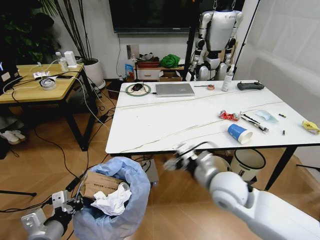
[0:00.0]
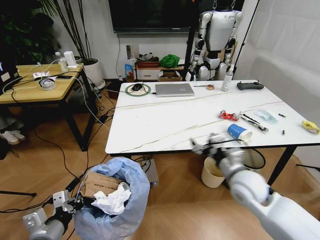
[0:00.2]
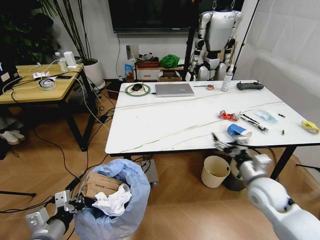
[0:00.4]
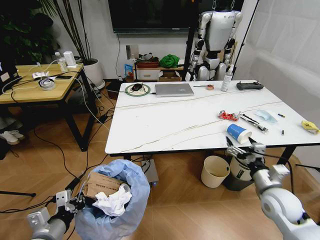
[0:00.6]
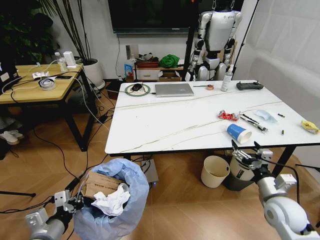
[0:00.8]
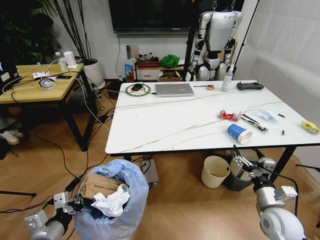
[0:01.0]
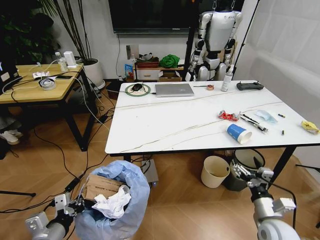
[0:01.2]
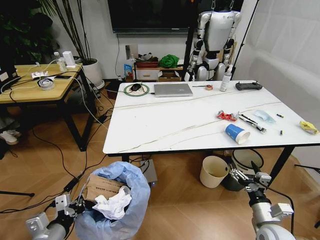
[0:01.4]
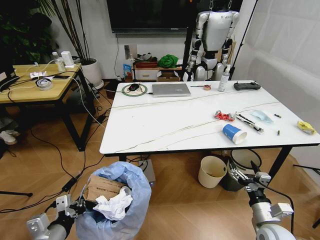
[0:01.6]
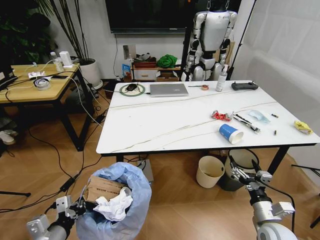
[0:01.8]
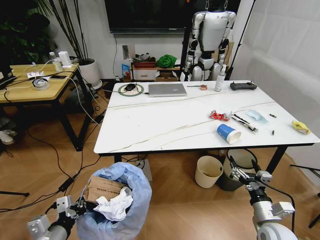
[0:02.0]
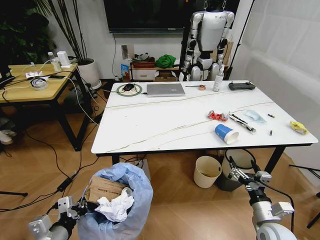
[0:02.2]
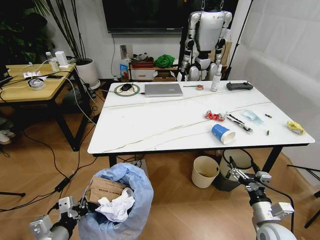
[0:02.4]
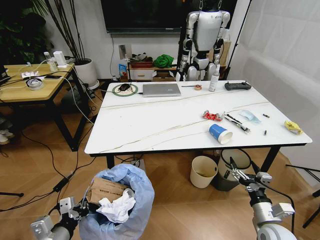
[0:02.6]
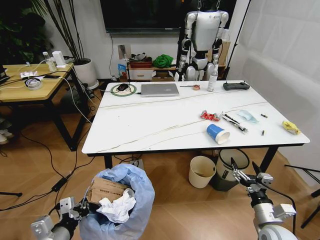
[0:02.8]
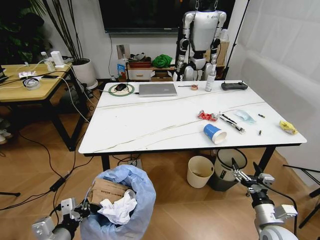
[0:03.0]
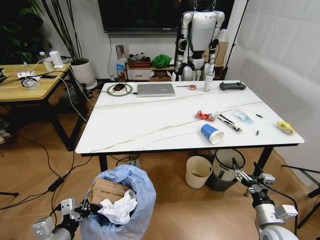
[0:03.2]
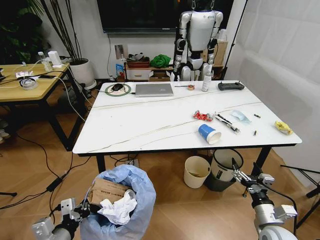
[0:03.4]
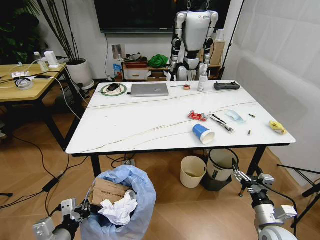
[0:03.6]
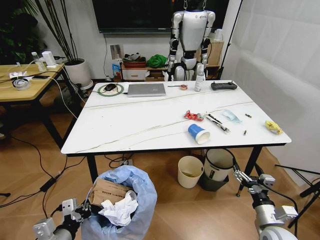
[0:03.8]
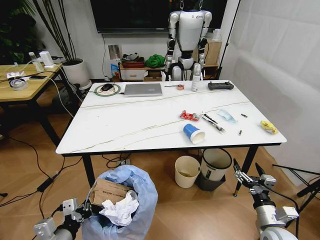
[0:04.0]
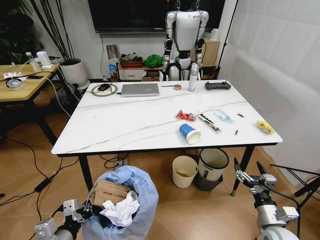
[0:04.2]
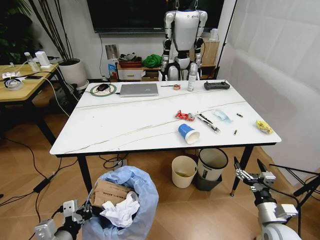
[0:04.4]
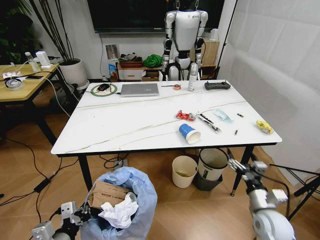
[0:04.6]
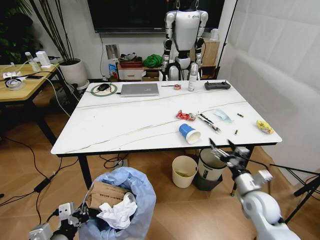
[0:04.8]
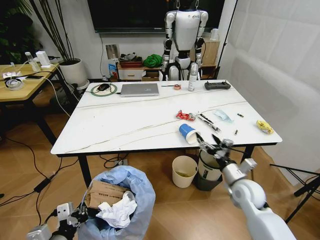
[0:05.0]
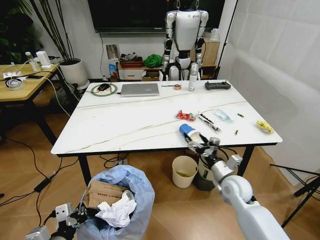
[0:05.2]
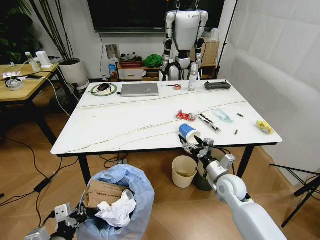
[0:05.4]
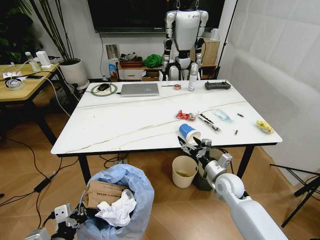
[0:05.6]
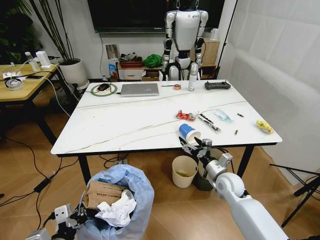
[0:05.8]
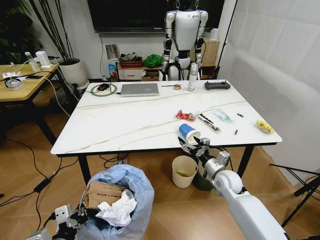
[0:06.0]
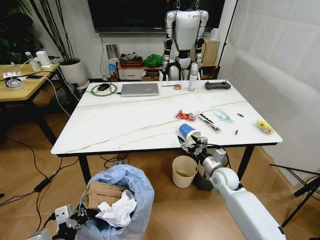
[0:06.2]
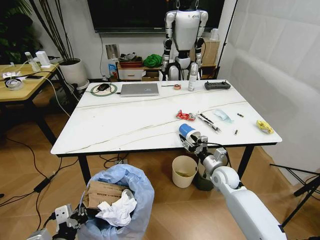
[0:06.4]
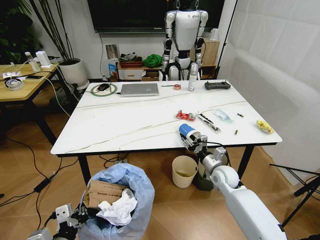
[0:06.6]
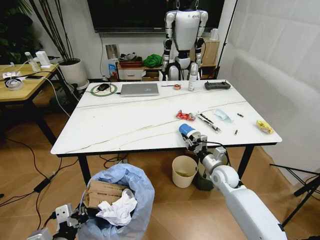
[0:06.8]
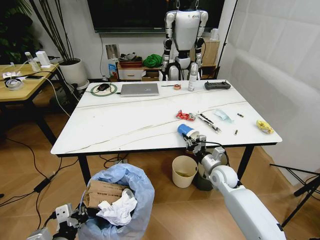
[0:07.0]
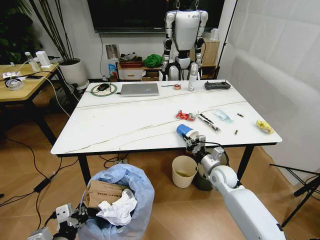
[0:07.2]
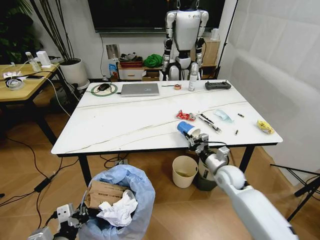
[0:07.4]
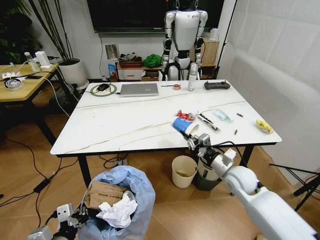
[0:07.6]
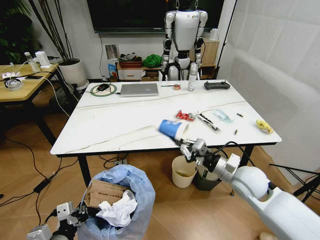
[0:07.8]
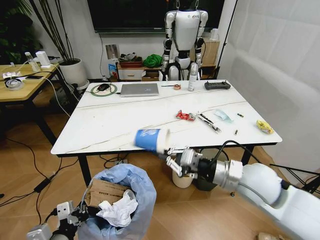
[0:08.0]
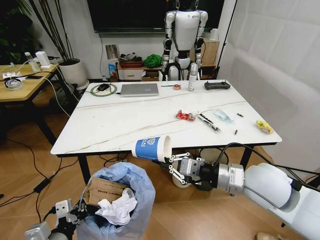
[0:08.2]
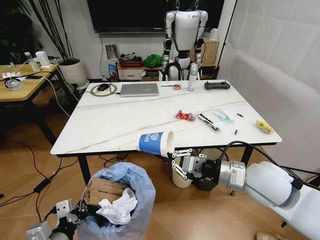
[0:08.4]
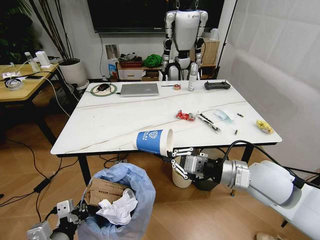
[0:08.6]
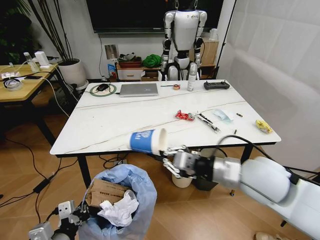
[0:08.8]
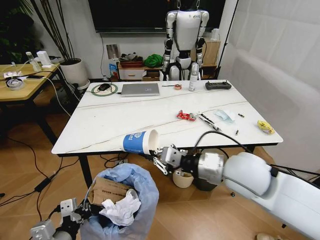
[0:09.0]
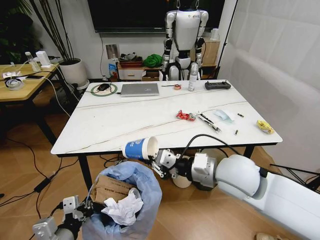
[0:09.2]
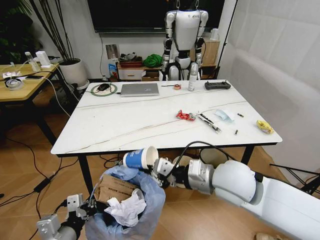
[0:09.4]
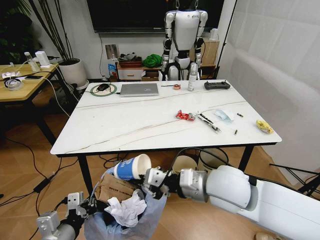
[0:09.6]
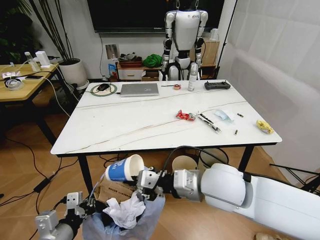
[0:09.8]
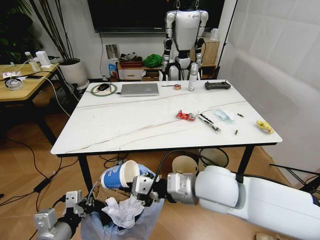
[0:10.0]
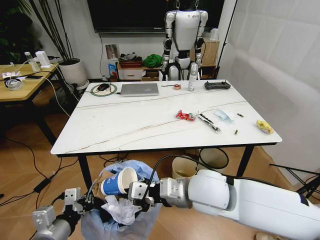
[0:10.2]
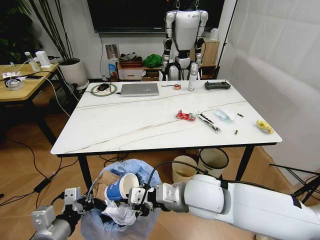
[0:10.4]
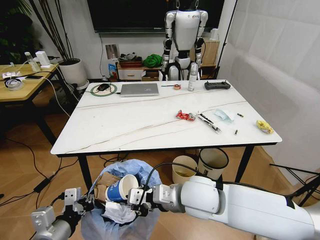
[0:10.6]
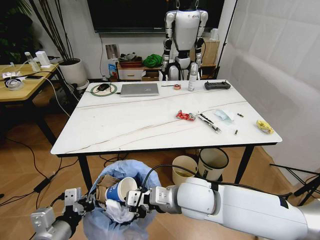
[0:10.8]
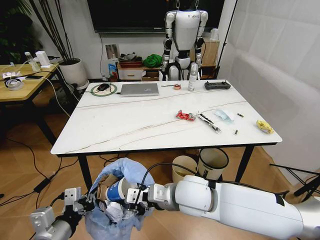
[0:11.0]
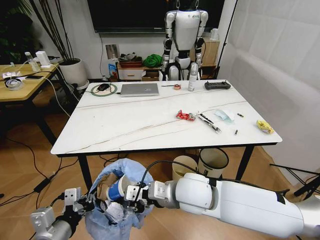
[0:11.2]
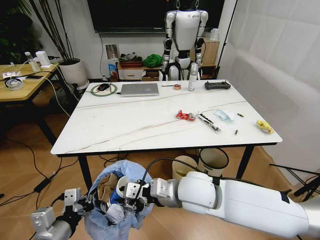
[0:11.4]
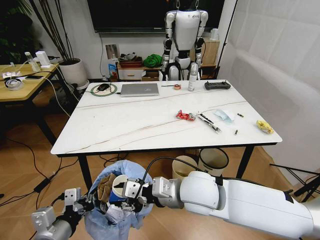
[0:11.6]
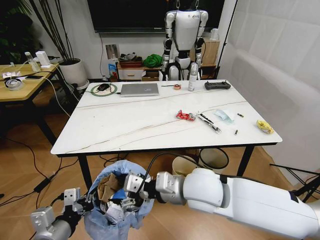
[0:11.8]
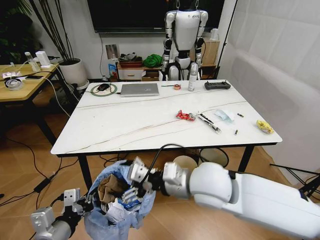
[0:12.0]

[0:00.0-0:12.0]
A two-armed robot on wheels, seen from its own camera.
Task of the whole recording: Pick up the trash bin and place the trash from the table into it.
0:00.0 to 0:01.6: The right gripper is displaced to the right, downward and backward by about 25 cm.
0:04.4 to 0:06.0: The right gripper is displaced forward and to the left by about 20 cm.
0:06.0 to 0:07.6: The right gripper goes some 5 cm upward, and closes.
0:07.6 to 0:09.0: The right gripper shifts about 20 cm upward and to the left.
0:09.0 to 0:10.4: The right gripper shifts roughly 10 cm to the left and downward.
0:10.4 to 0:12.0: The right gripper opens its fingers.

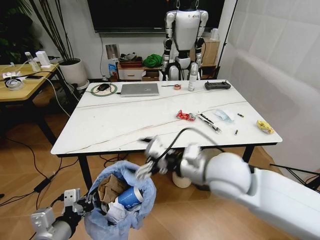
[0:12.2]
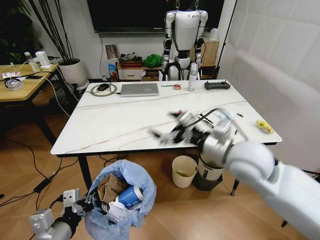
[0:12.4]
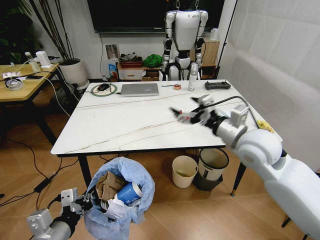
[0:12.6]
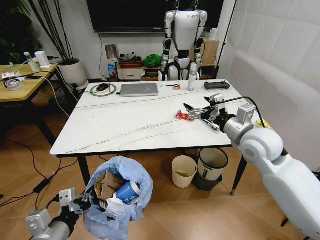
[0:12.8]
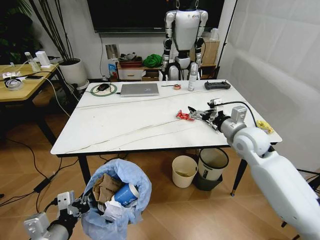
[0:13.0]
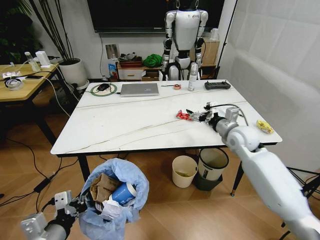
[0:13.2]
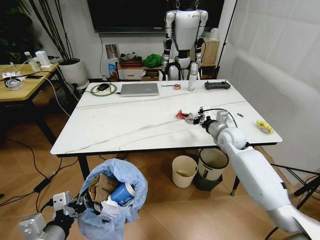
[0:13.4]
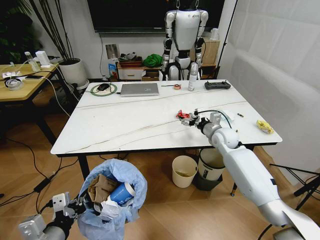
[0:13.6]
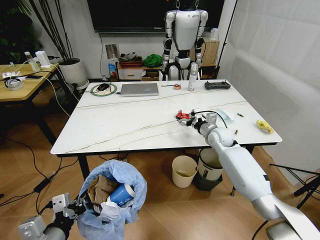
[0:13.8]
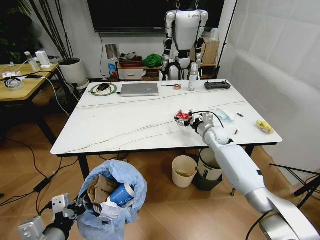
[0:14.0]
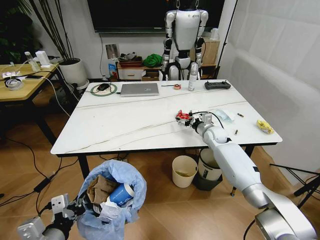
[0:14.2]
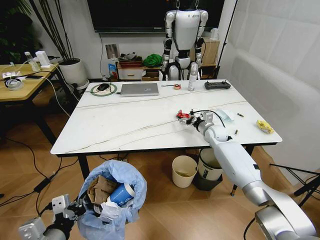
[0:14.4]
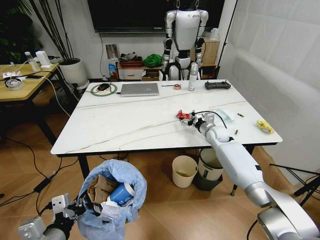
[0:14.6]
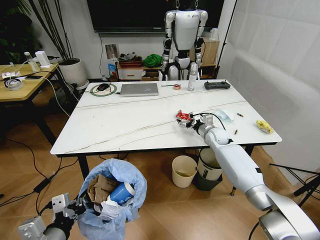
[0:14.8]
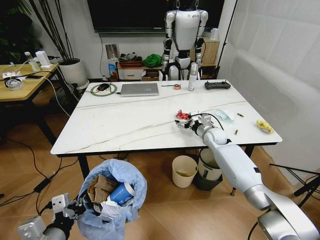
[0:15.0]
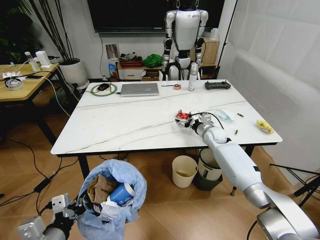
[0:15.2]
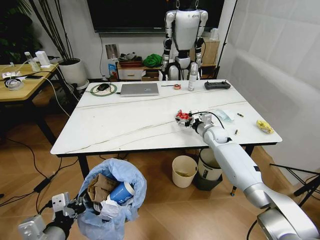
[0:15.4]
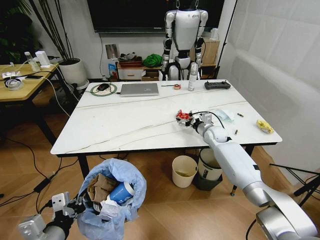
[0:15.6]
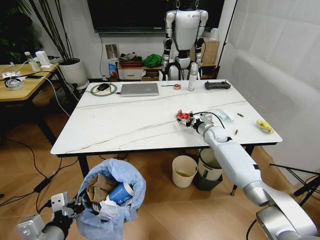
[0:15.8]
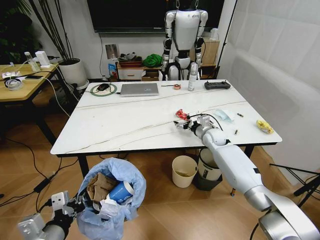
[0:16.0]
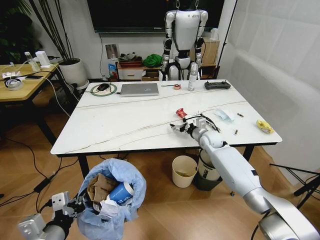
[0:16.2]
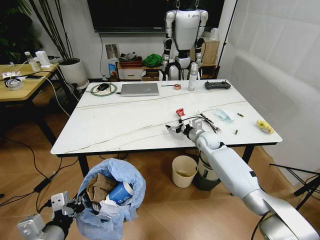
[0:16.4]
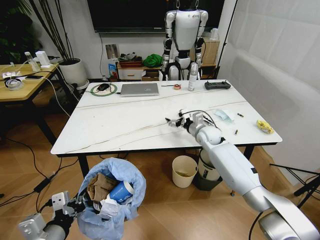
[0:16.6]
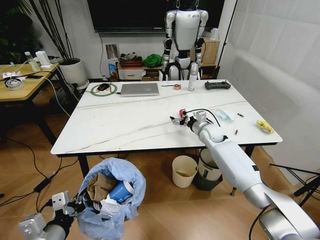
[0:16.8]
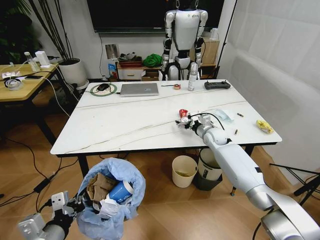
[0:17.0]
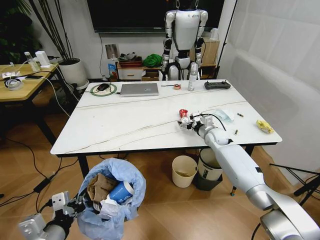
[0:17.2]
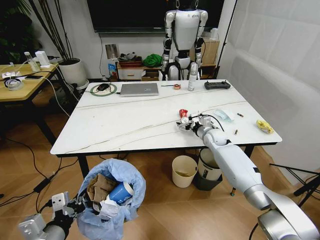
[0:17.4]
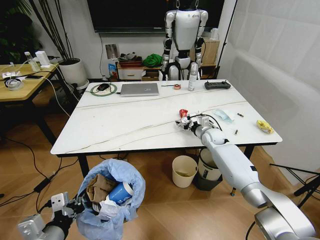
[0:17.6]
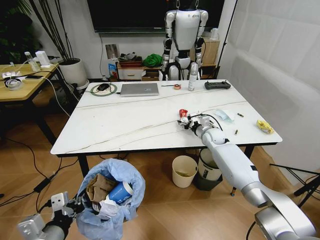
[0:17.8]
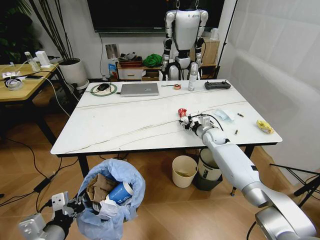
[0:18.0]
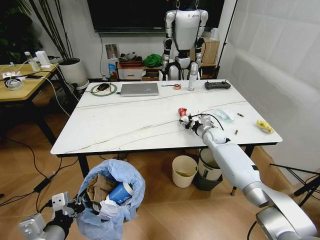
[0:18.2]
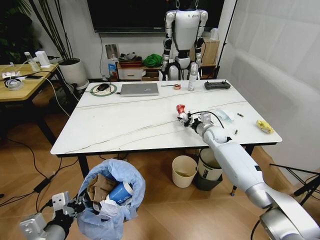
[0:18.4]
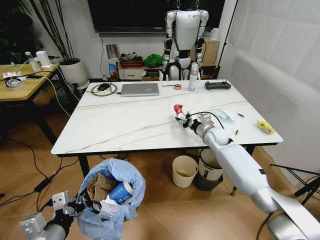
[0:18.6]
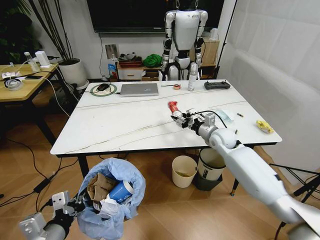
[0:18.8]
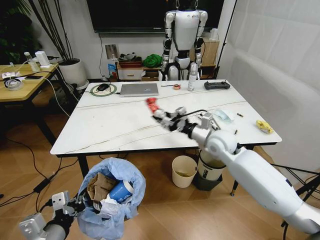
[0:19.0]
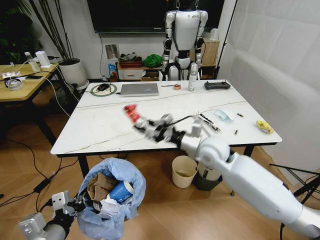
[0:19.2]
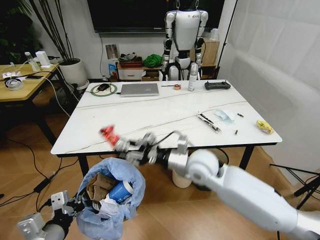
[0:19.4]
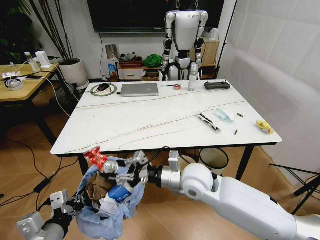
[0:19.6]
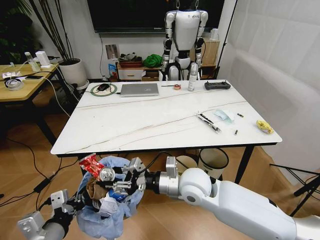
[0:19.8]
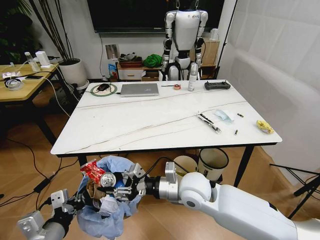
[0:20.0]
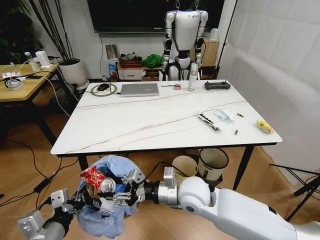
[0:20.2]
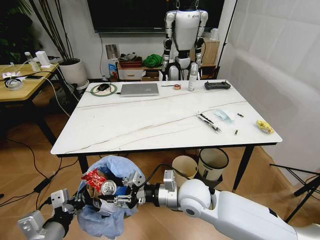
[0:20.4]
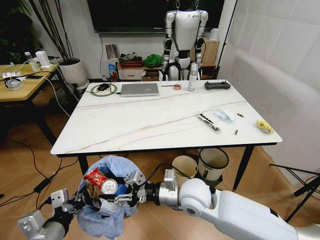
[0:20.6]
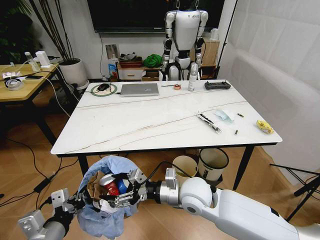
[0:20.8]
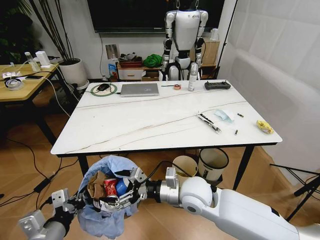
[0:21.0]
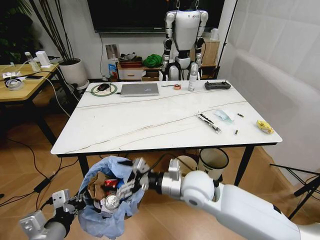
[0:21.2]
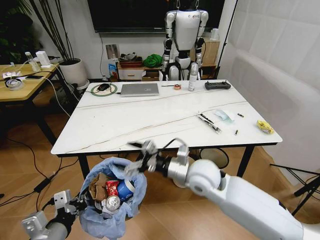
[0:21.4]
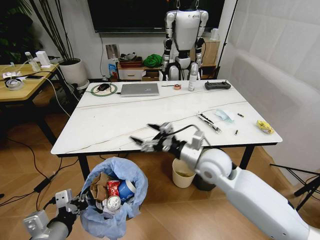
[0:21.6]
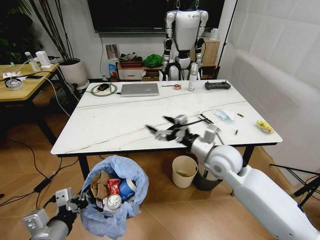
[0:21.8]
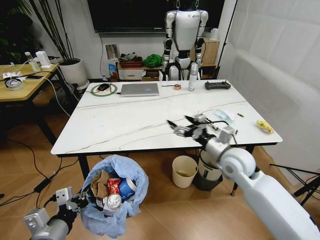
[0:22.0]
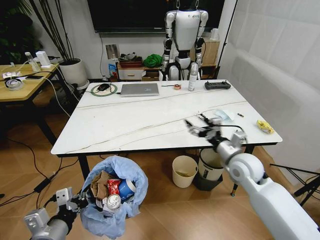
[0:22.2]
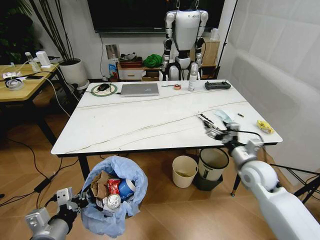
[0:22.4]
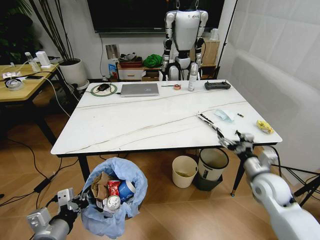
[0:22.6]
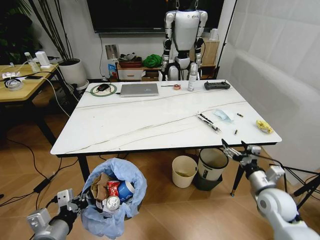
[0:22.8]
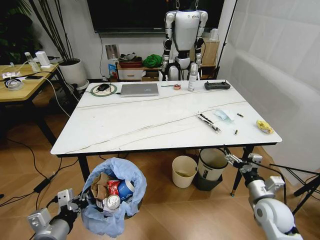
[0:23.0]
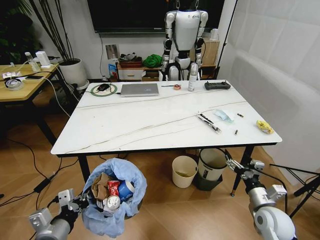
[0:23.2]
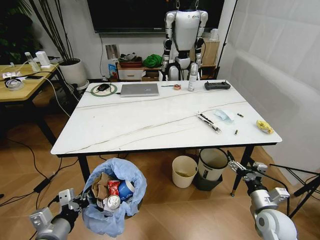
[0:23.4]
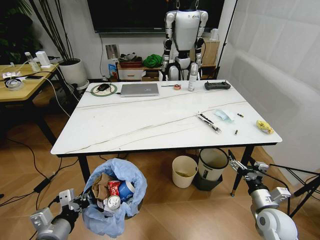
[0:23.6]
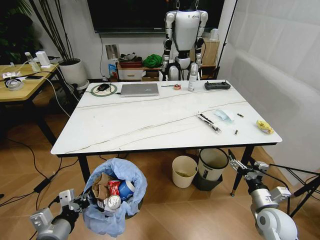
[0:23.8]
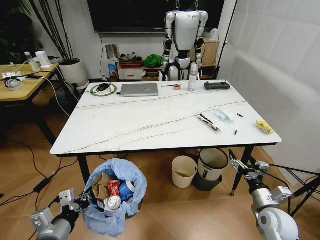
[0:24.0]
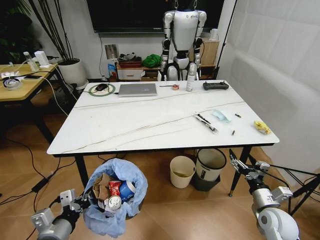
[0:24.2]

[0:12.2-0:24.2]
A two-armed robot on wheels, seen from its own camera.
Task of the whole recording: Pick up the trash bin and place the trash from the table into it.
0:12.2 to 0:13.8: The right gripper goes approximately 30 cm forward, downward and to the right.
0:13.8 to 0:15.2: The grippers make only small movements.
0:15.2 to 0:16.6: The right gripper shifts by some 5 cm.
0:16.6 to 0:18.2: The right gripper moves some 5 cm, and closes up.
0:18.2 to 0:19.8: The right gripper is displaced backward and to the left by roughly 30 cm.
0:19.8 to 0:21.2: The right gripper opens its fingers.
0:21.2 to 0:22.6: The right gripper goes roughly 25 cm to the right.
0:22.6 to 0:24.2: The right gripper shifts approximately 10 cm backward and downward.
